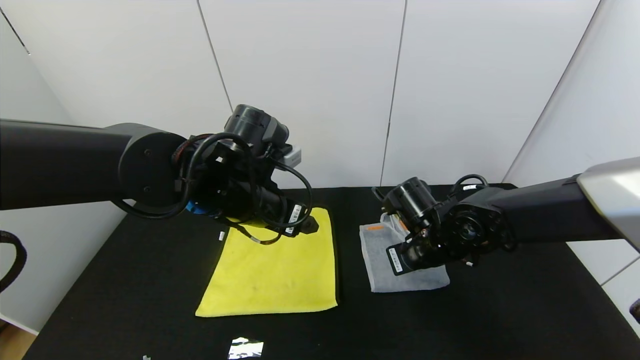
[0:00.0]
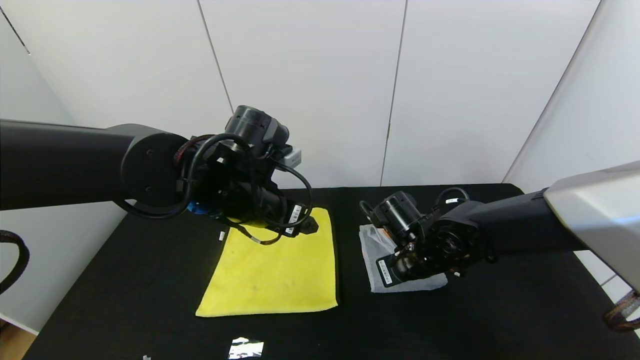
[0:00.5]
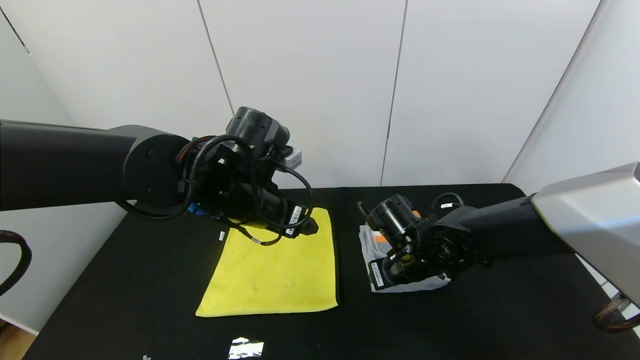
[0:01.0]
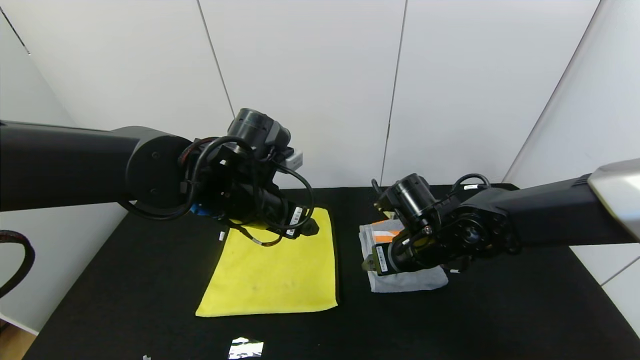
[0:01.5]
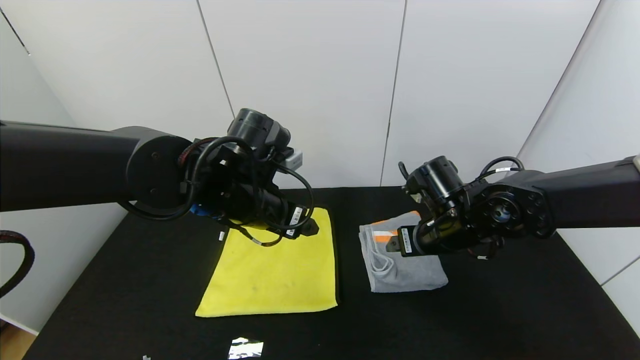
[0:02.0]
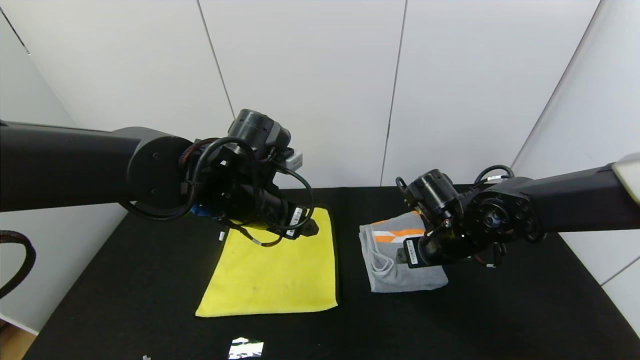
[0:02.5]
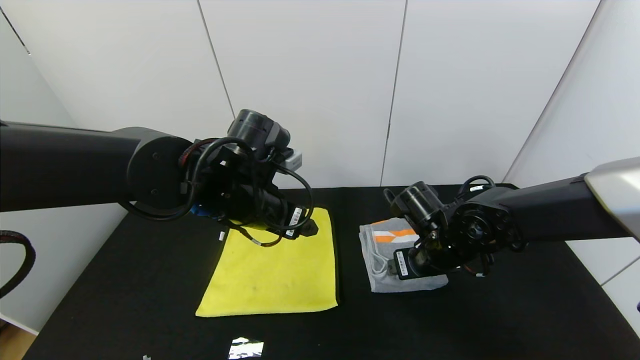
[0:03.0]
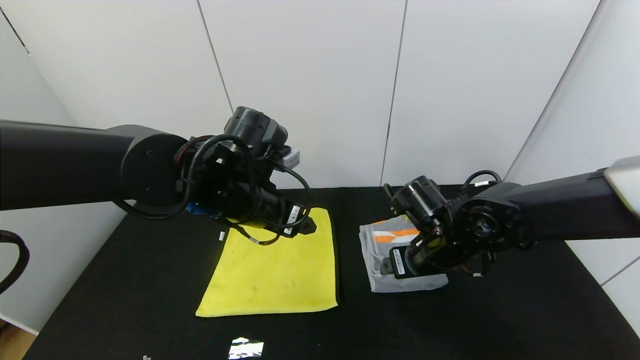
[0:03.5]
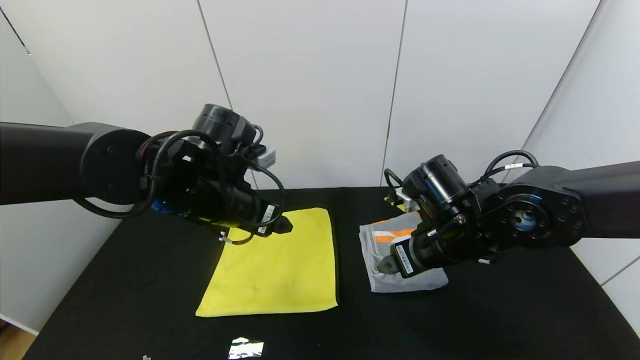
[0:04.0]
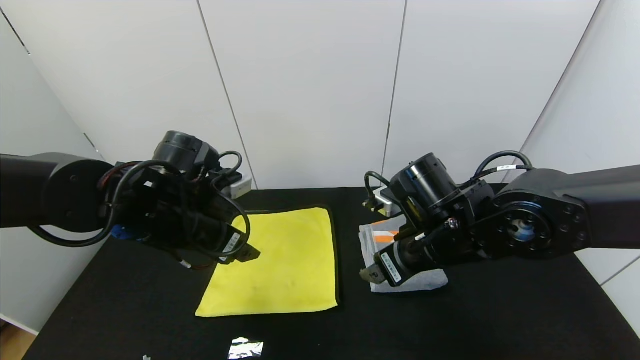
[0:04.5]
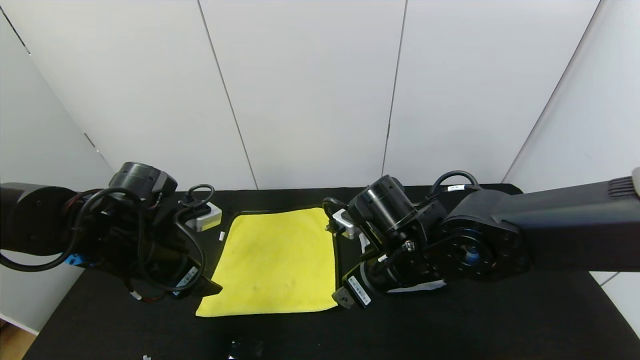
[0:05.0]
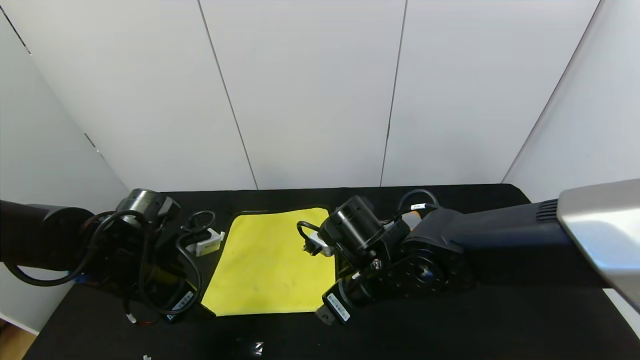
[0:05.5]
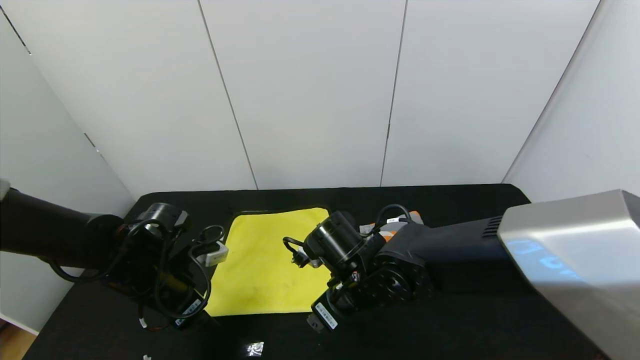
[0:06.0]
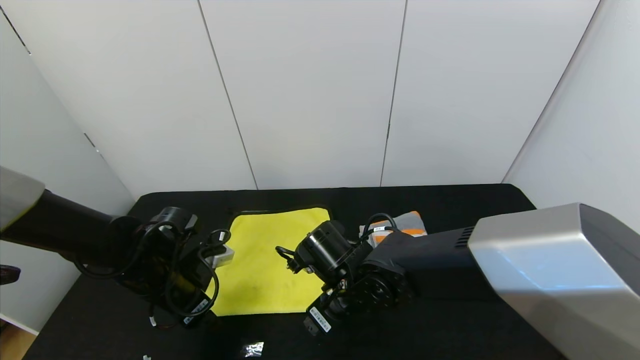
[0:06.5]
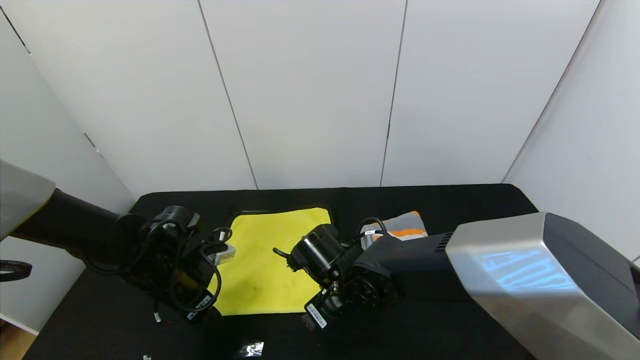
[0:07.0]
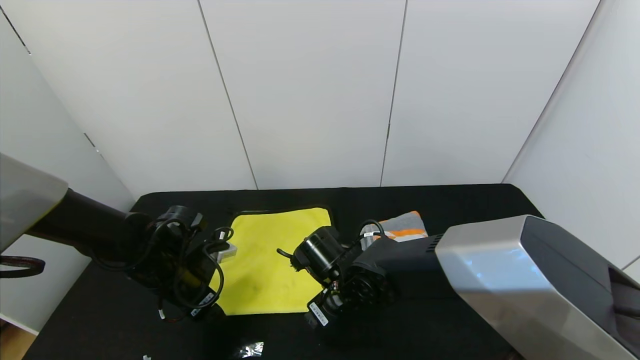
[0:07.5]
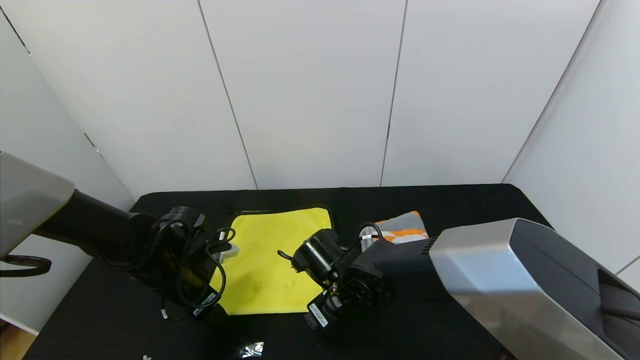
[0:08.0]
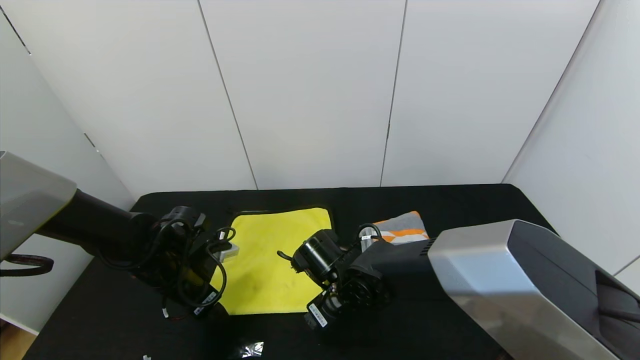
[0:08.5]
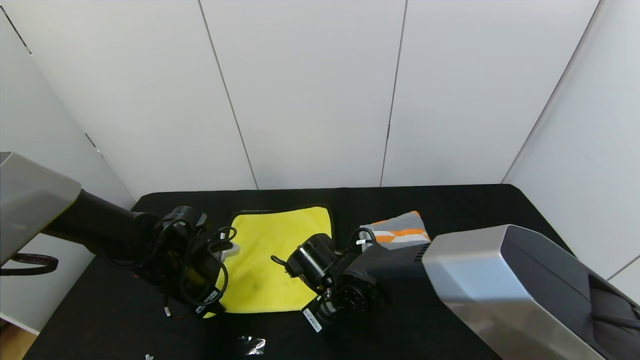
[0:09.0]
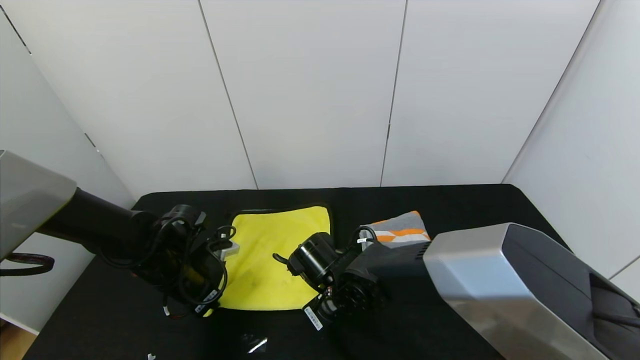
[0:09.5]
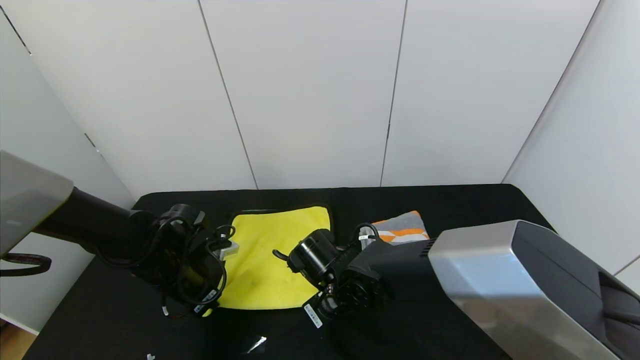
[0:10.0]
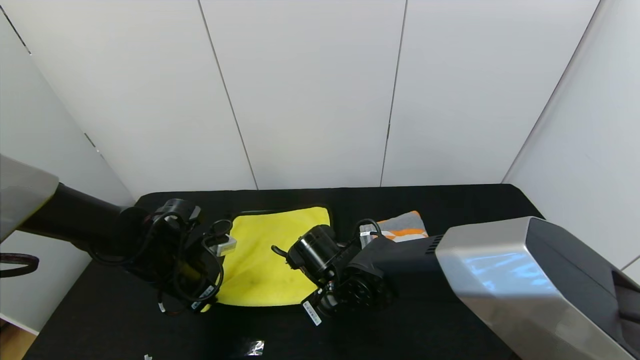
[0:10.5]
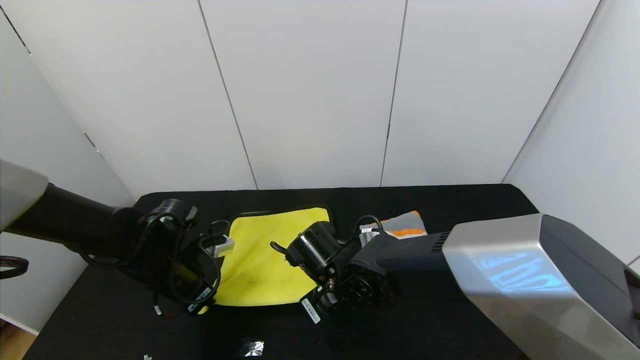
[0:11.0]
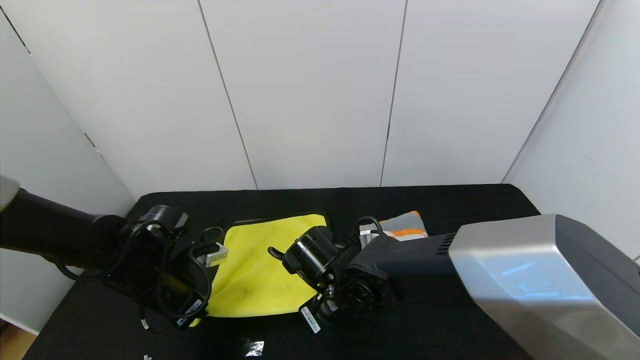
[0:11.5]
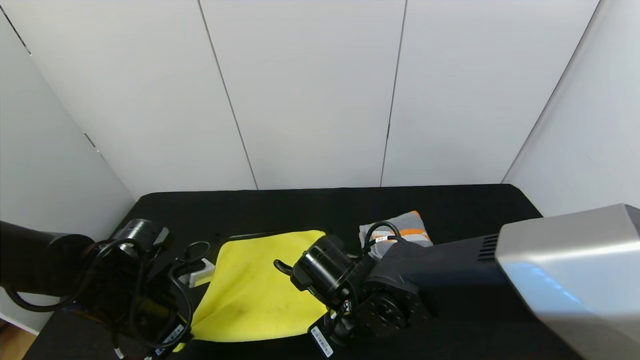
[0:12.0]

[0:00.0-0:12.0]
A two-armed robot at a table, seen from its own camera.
Task of the whole recording: Use the gripper to fold the yellow towel and grey towel in half twice,then put the yellow towel on the grey towel.
Step, 0:00.0 to 0:04.0: Fold the gray towel from right to left with right gripper.
0:00.0 to 0:02.0: The right gripper opens up.
0:02.0 to 0:04.0: There are only small adjustments of the grippers.
0:04.0 to 0:06.0: The left gripper is displaced downward and to the left by about 15 cm. The right gripper heads to the left and downward, covering approximately 15 cm.
0:06.0 to 0:08.0: The right gripper goes approximately 5 cm downward.
0:08.0 to 0:10.0: The right gripper closes up. Meanwhile the left gripper closes its fingers.
0:10.0 to 0:12.0: Both grippers move backward, about 5 cm.

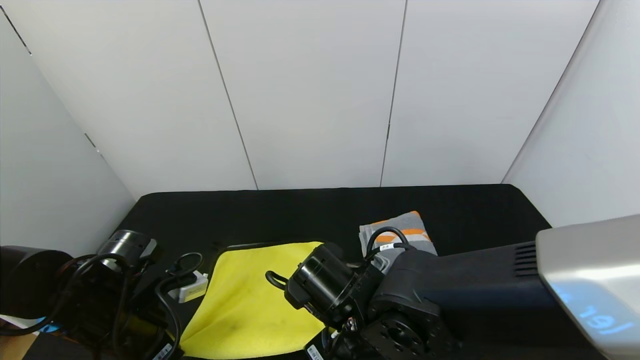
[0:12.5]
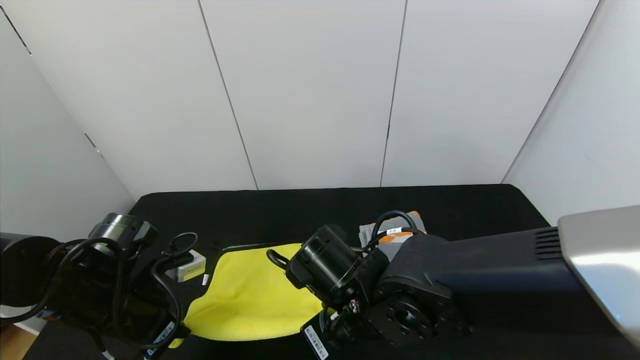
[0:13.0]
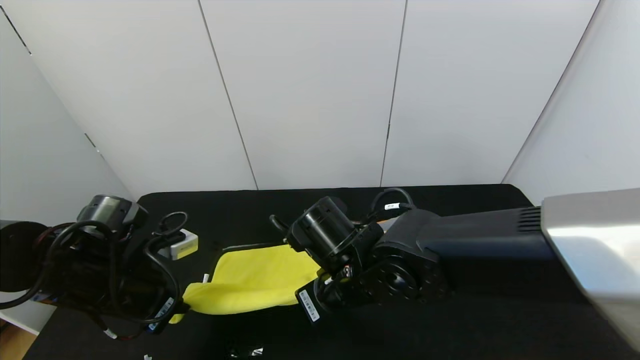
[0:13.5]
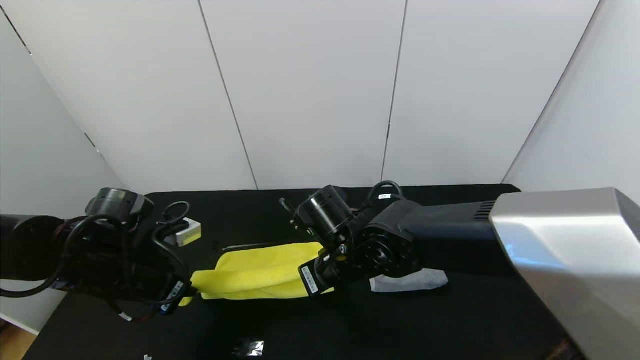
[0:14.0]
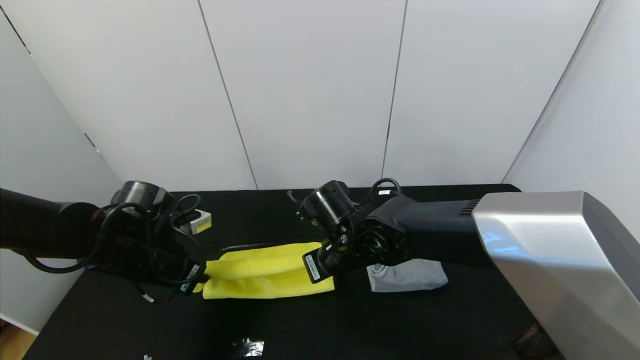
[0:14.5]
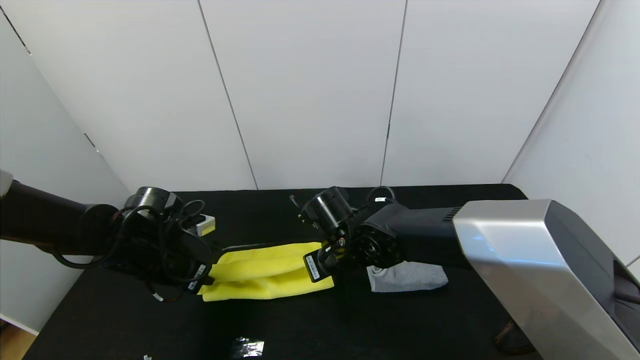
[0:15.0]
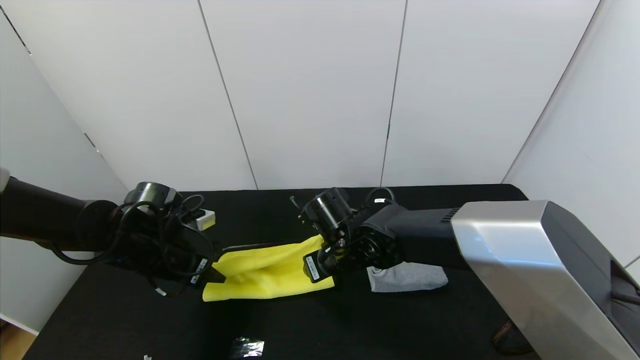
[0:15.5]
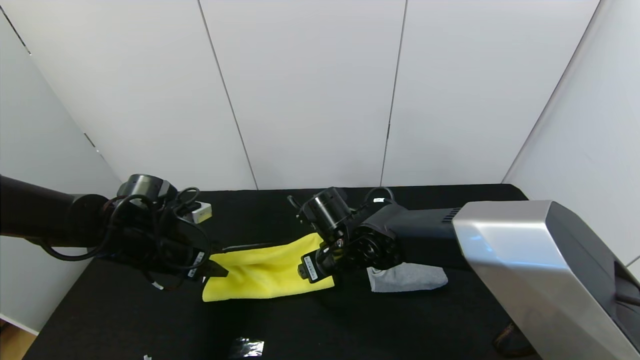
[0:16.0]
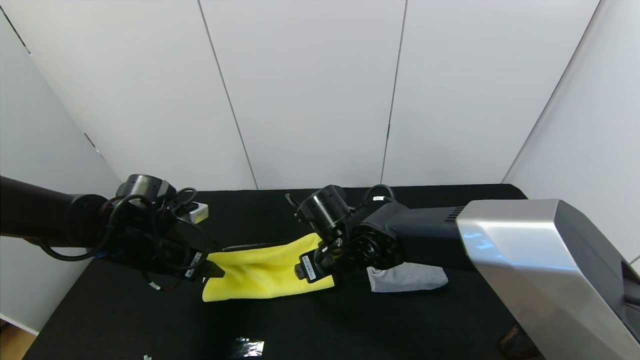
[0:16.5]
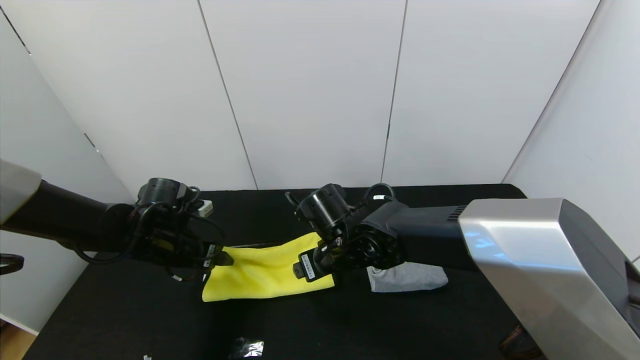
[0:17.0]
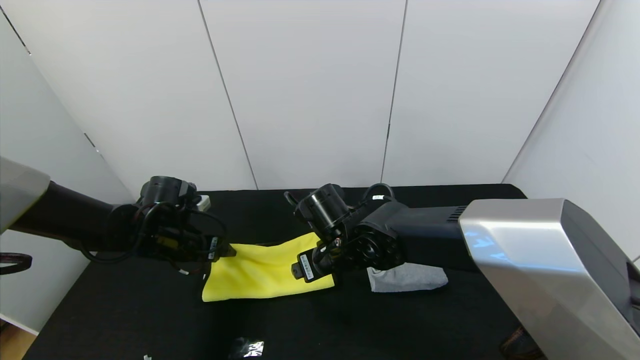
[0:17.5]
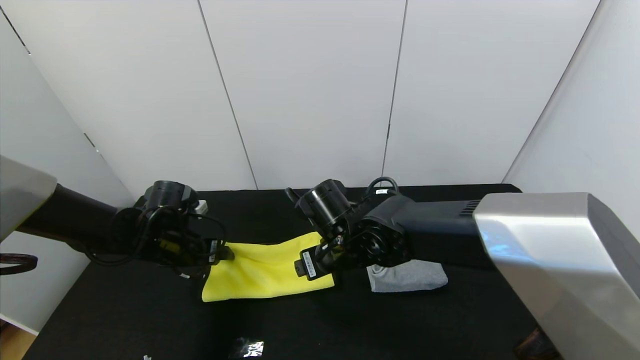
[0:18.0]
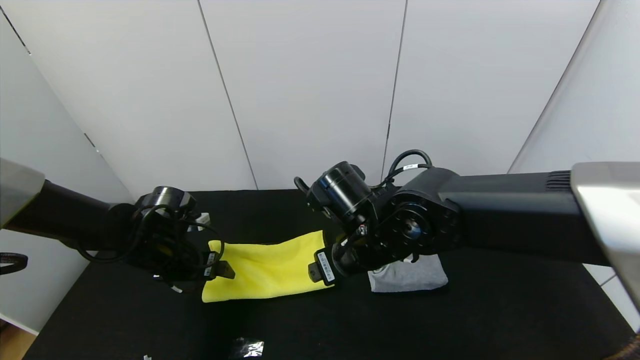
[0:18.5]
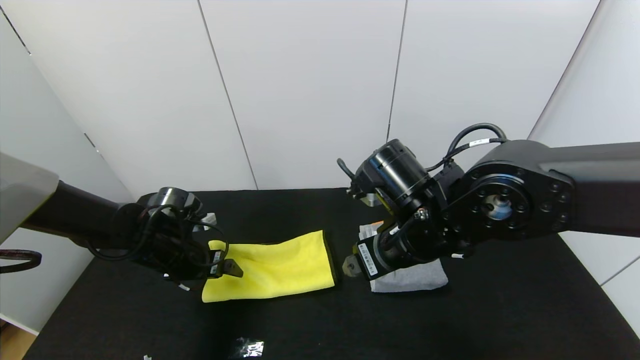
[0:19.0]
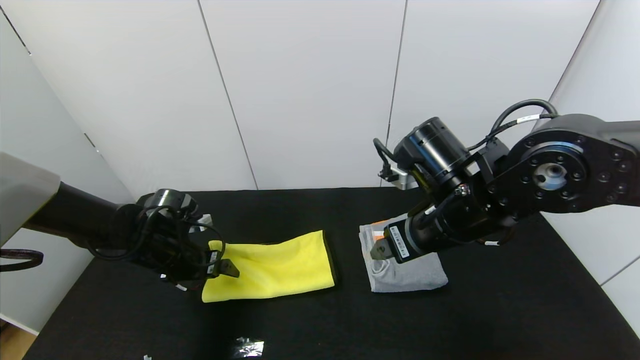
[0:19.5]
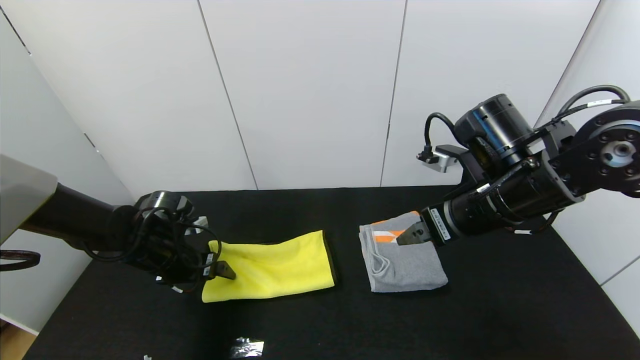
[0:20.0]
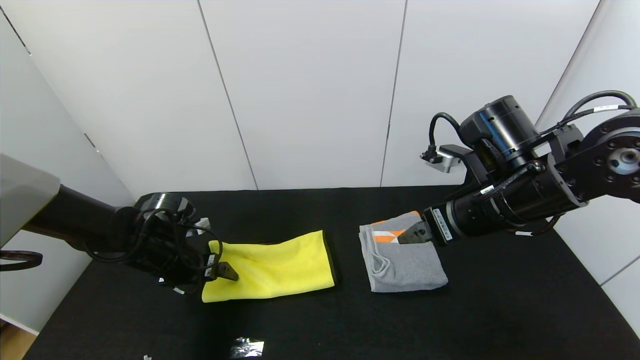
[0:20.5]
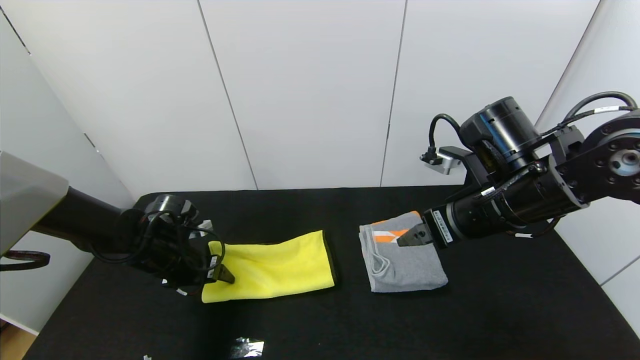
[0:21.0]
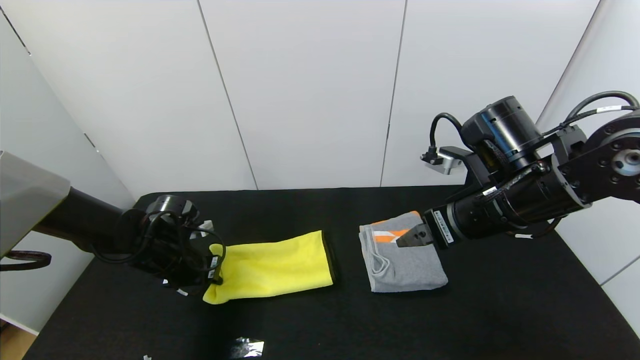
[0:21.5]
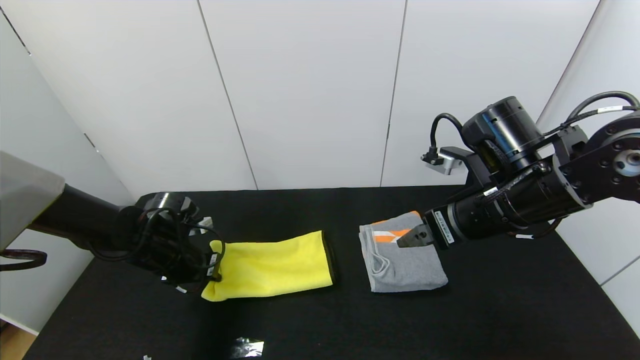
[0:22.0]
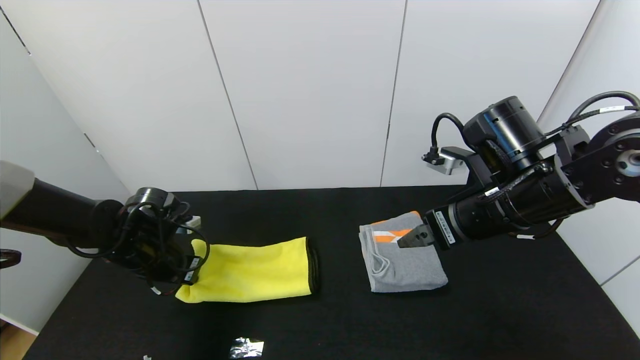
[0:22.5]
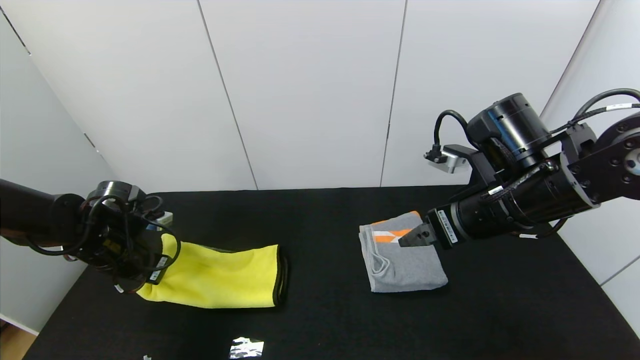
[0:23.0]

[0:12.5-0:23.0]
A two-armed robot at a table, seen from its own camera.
Task of the whole recording: Use the gripper to fold the yellow towel and grey towel in half twice,then put the yellow towel on the grey towel.
Step, 0:12.5 to 0:18.0: Fold the yellow towel upwards with the left gripper.
0:12.5 to 0:14.5: Both grippers move forward, some 10 cm.
0:14.5 to 0:16.5: The left gripper opens up. Meanwhile the right gripper opens up.
0:16.5 to 0:19.0: The right gripper shifts roughly 15 cm upward, to the right and backward.
0:19.0 to 0:21.0: The left gripper closes its fingers; the right gripper heads to the right, covering roughly 10 cm.
0:21.0 to 0:23.0: The left gripper travels to the left by approximately 5 cm, and closes.
